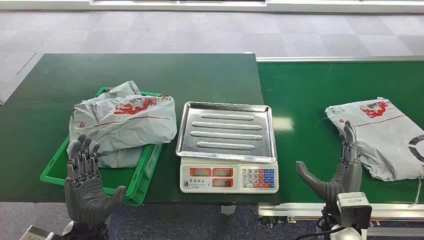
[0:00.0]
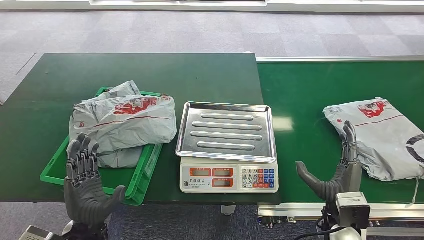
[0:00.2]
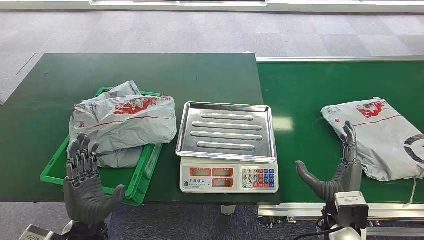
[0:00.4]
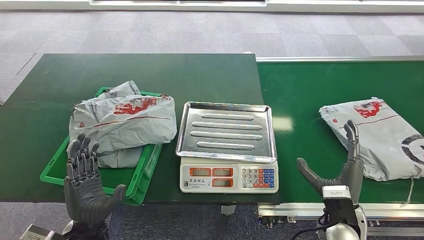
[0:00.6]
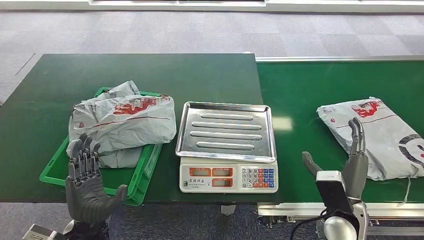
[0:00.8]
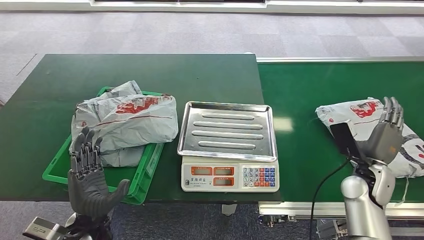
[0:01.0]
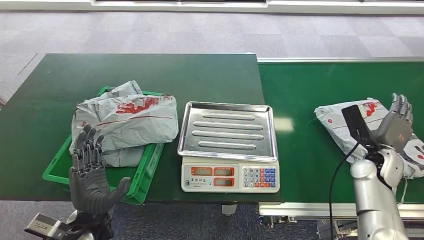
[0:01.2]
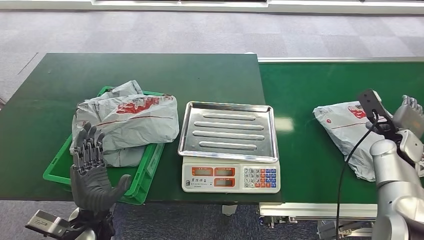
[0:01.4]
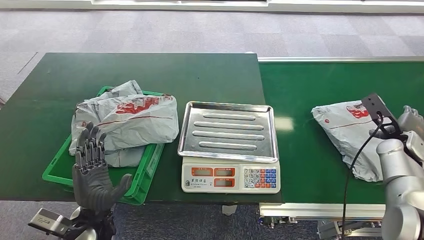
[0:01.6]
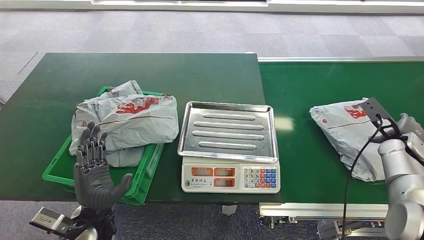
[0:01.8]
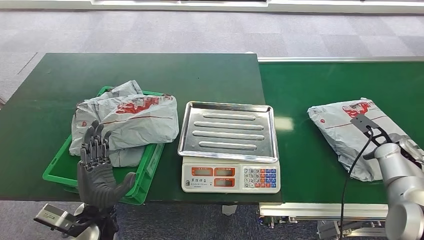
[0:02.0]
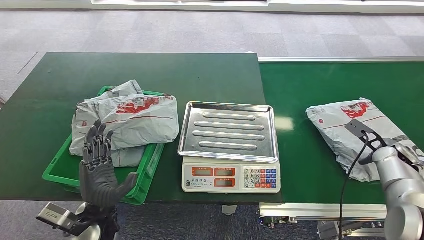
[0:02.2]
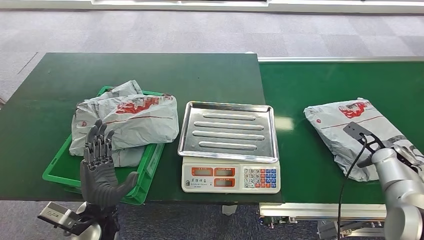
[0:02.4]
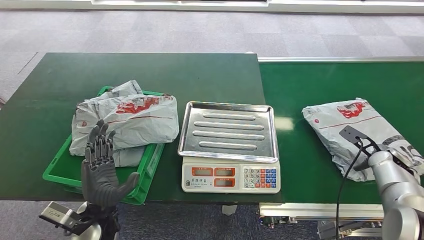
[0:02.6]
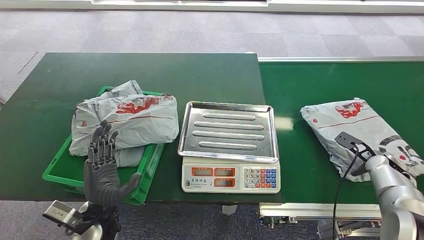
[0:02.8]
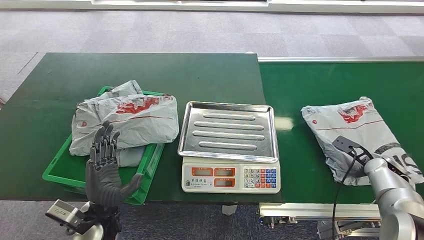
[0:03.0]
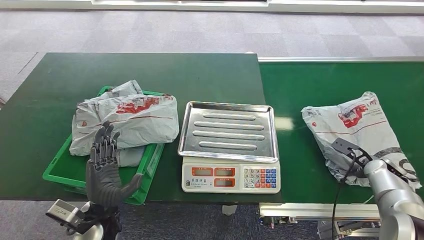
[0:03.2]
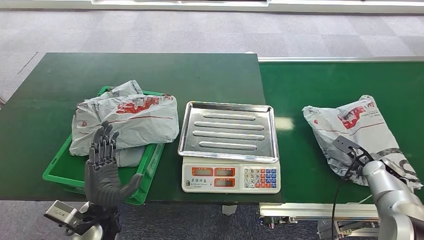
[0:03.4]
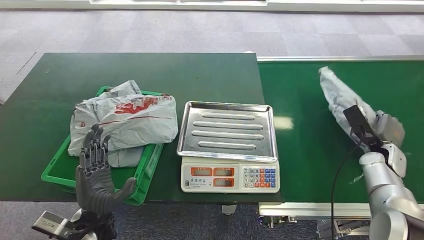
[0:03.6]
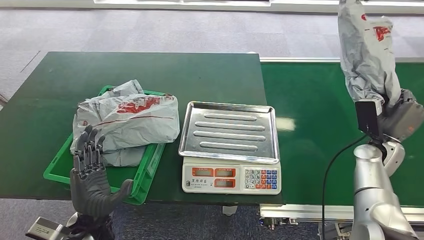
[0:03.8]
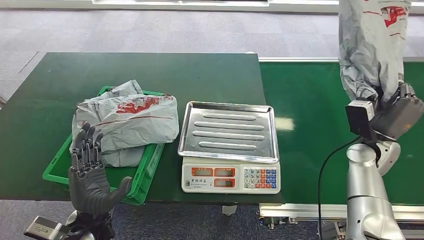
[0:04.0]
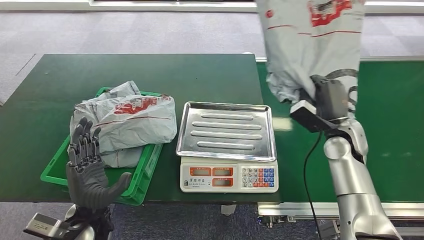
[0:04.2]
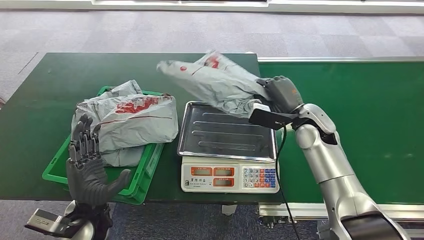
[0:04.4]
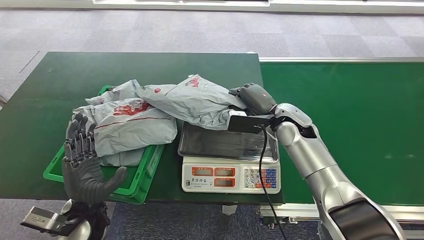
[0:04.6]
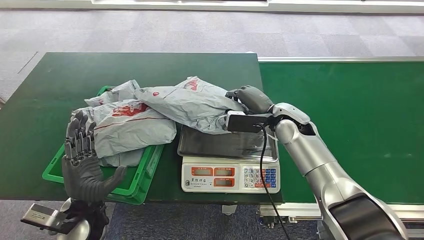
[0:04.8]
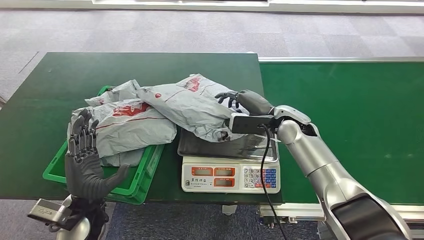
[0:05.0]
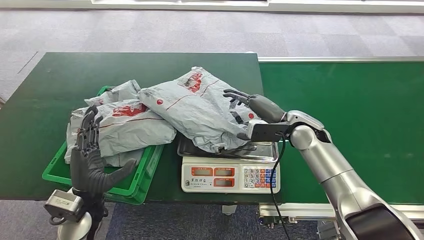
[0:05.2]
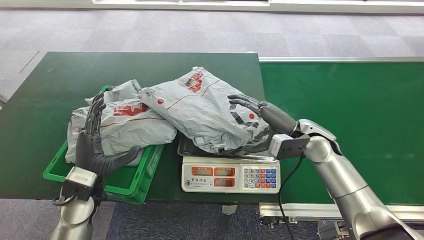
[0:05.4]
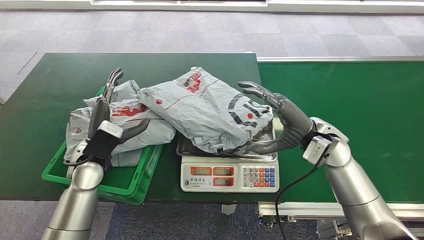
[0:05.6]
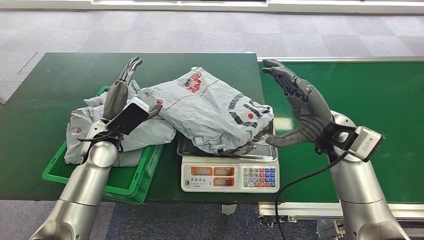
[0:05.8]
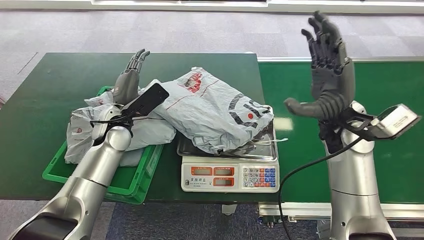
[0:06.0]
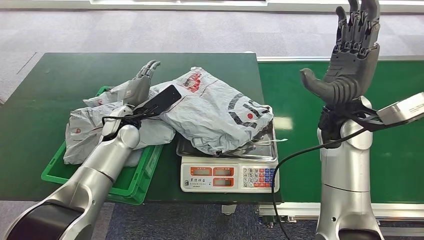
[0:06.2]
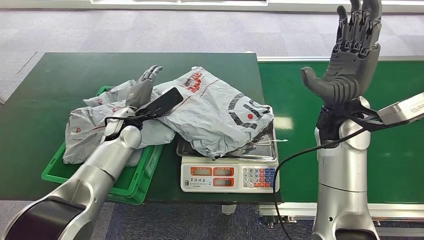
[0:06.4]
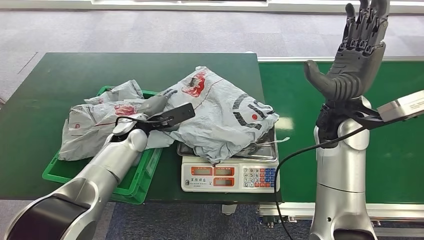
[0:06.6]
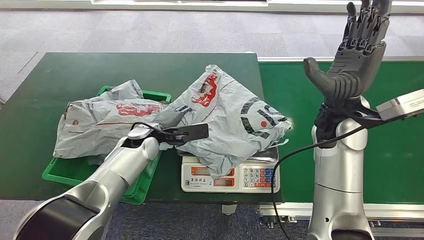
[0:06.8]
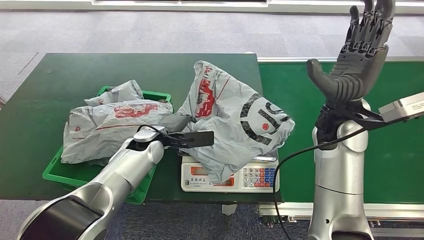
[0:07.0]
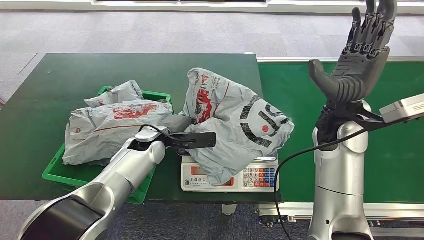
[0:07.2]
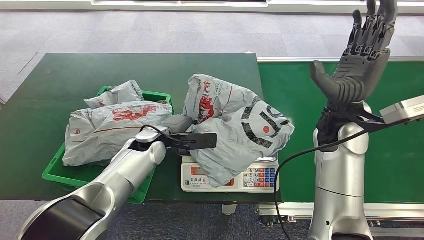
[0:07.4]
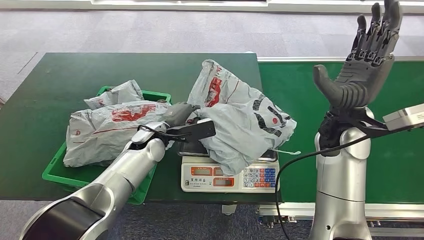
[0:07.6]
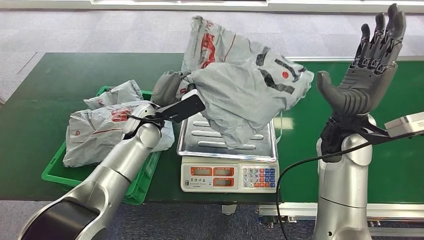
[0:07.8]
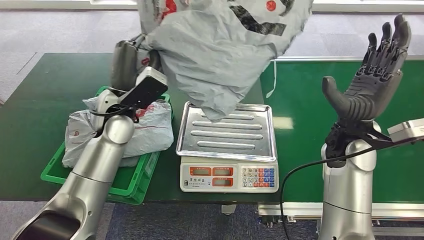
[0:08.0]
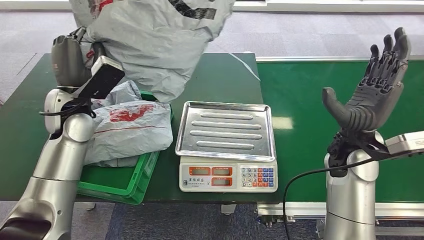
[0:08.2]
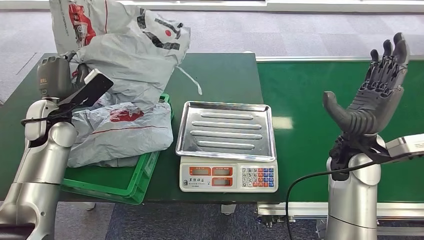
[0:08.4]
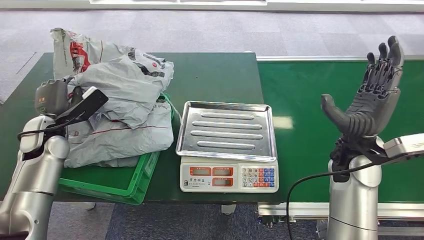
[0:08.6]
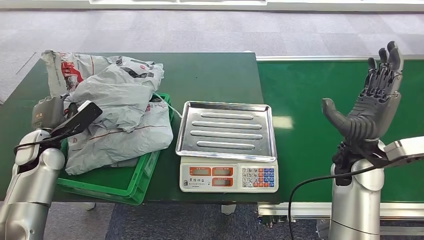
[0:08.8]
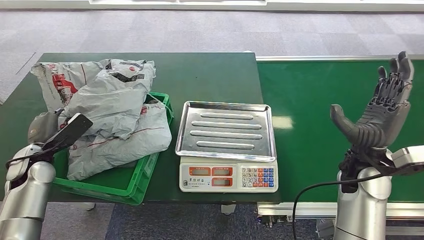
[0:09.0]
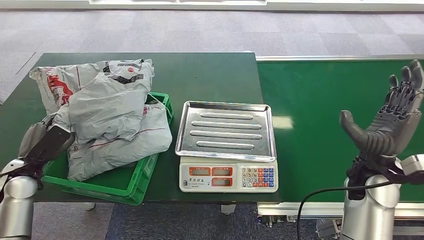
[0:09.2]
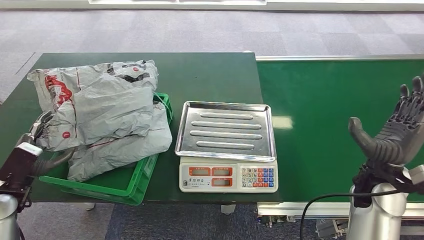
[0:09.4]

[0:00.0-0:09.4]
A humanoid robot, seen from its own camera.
Step, 0:00.0 to 0:04.0: Pick up the package from the conveyor belt.
Step, 0:04.4 to 0:05.8: Place the package onto the inbound machine.
Step, 0:06.0 to 0:08.2: Pick up the package from the inbound machine.
Step, 0:08.4 to 0:09.4: Place the package into the parcel locker.
0:01.6 to 0:03.2: The right hand is displaced downward by some 5 cm.
